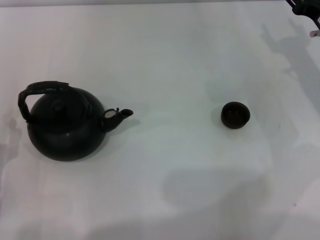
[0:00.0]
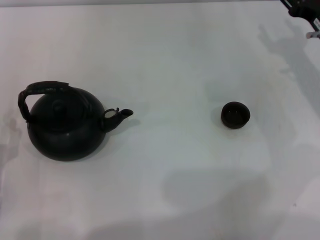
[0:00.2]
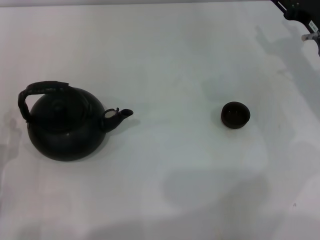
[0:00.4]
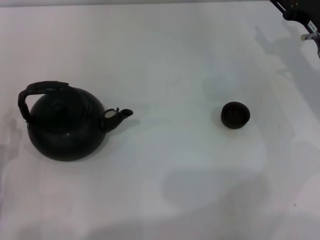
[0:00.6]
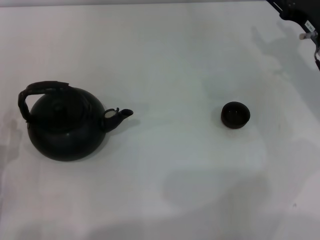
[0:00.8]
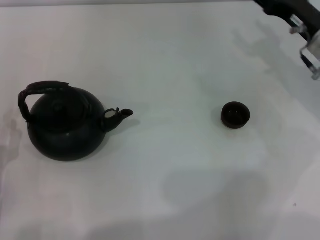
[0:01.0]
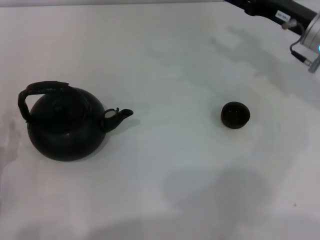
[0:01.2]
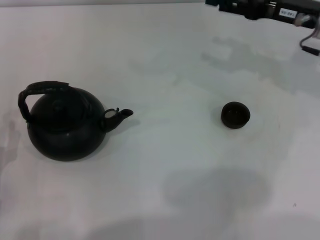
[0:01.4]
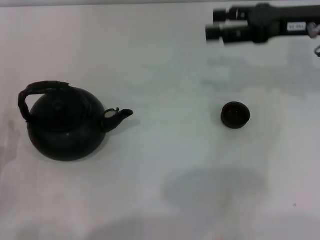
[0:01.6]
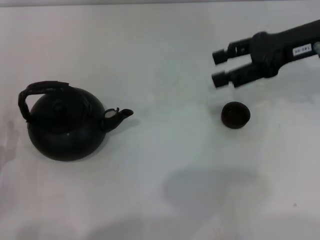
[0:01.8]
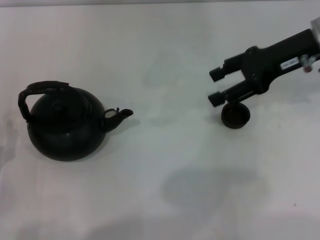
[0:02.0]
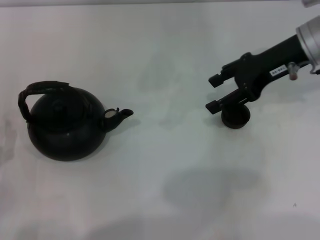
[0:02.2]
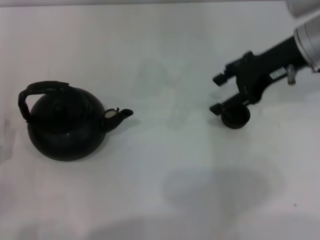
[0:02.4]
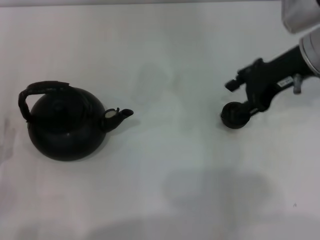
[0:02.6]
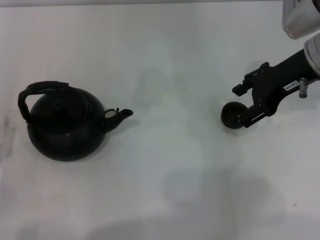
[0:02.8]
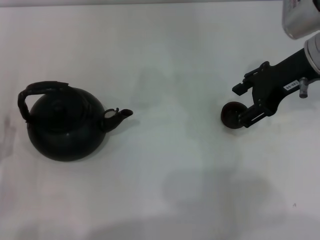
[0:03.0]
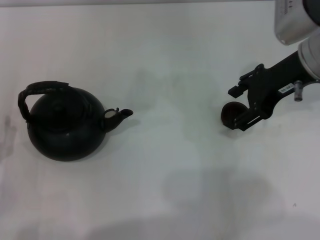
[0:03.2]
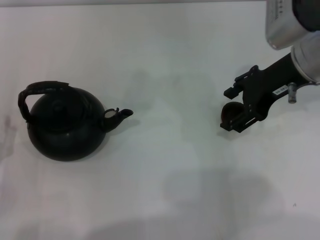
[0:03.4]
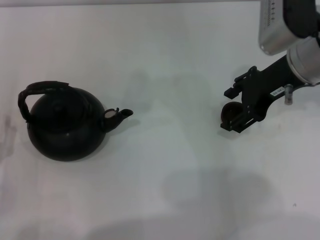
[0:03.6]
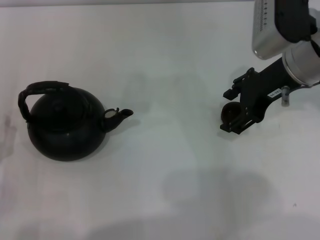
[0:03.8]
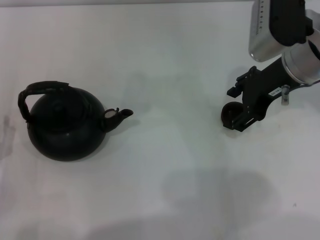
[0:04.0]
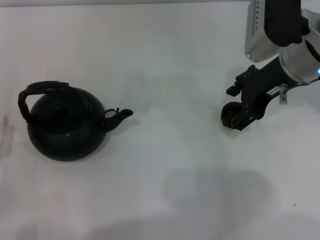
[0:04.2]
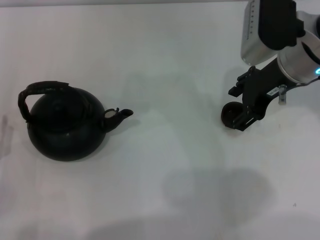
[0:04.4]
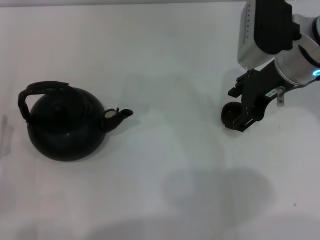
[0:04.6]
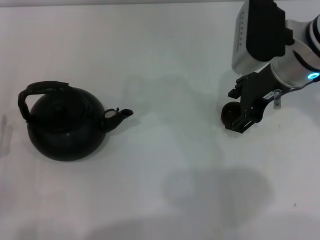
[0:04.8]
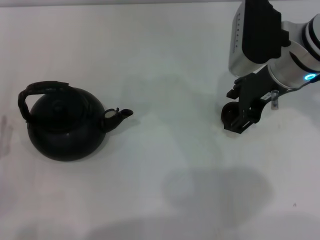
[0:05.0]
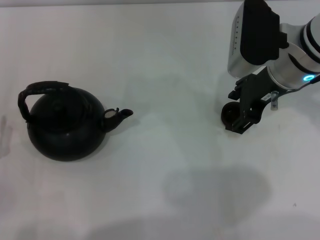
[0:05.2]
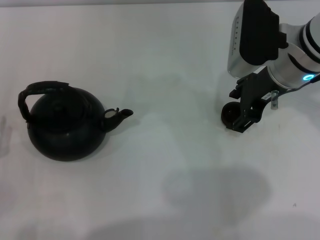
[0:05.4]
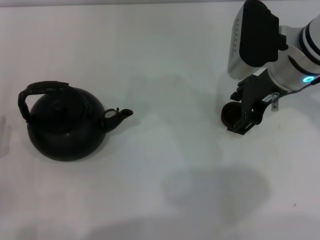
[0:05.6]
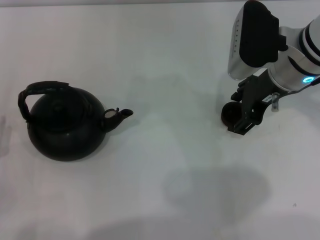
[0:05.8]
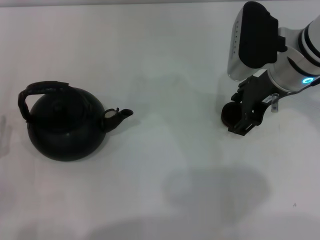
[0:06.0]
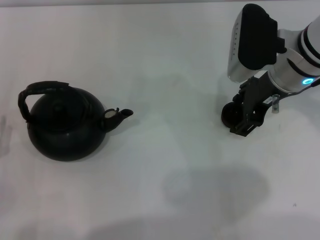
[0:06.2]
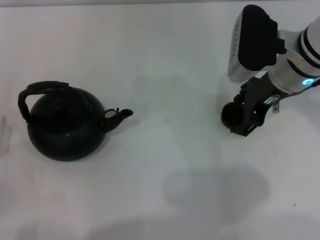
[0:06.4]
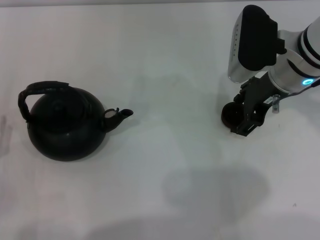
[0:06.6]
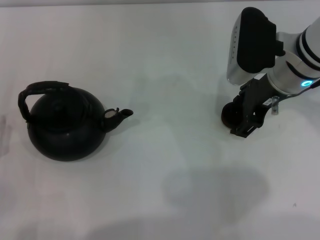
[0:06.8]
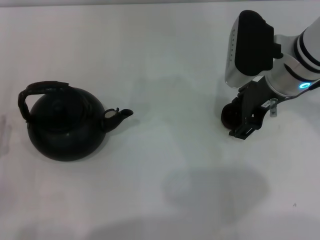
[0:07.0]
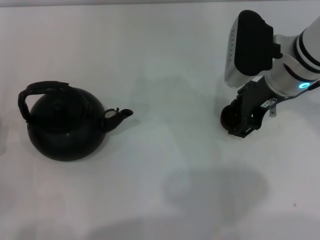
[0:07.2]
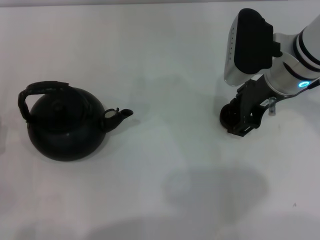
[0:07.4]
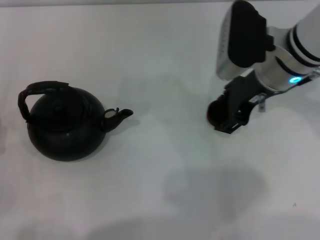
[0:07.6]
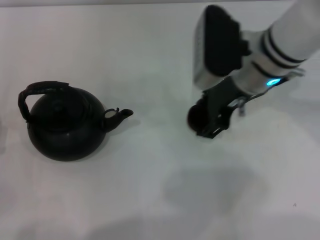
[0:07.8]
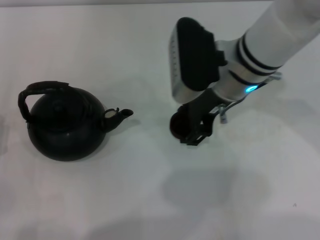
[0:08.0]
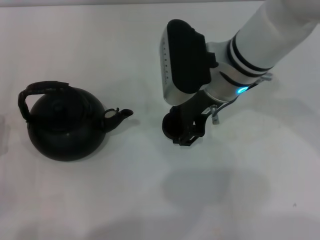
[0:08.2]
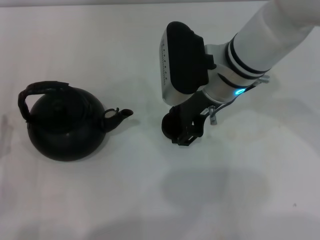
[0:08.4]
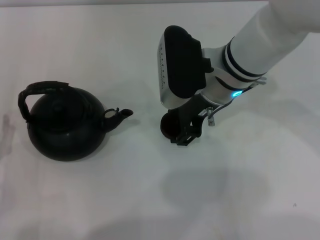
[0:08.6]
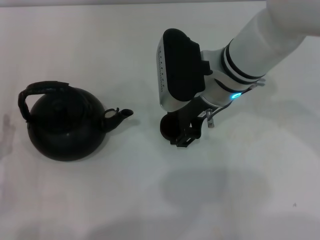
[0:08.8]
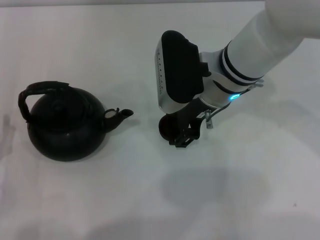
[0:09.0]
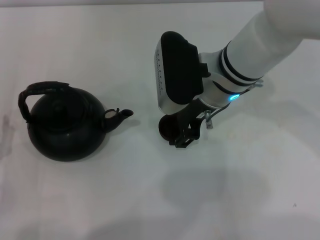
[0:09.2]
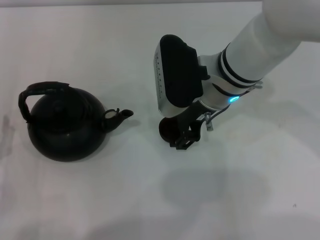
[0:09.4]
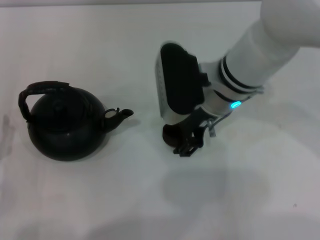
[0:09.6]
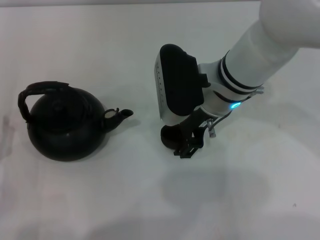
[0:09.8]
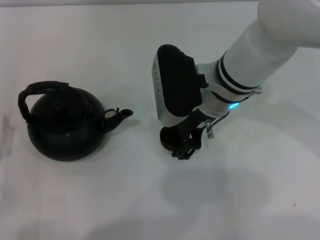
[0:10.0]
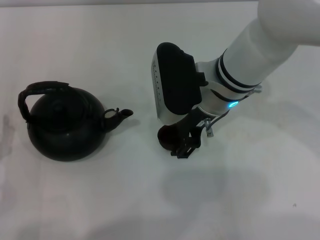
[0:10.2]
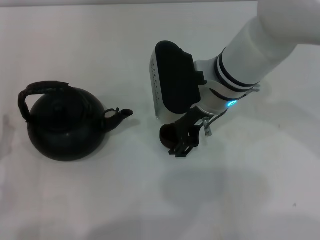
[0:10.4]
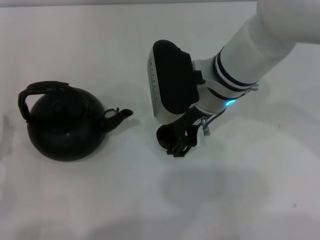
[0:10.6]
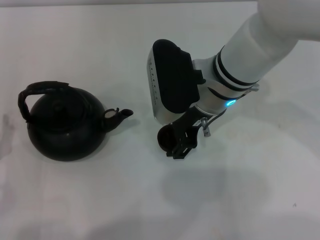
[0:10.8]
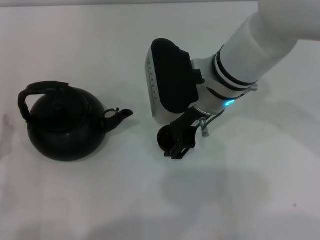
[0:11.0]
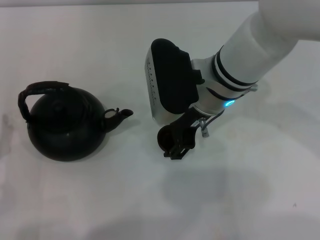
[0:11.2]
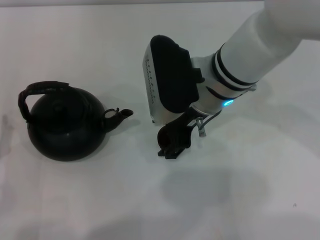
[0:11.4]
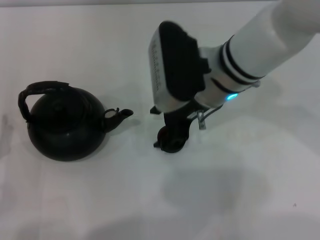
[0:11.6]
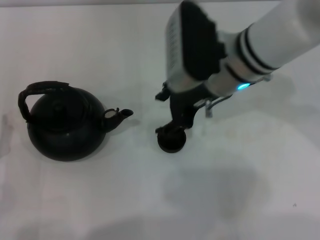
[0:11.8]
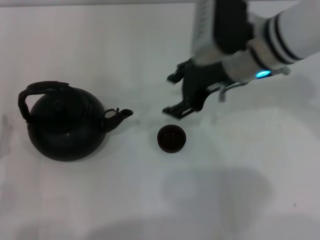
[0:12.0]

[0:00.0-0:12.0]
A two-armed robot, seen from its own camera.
Task of the whole recording: Grasp the handle of the teapot with one hand and pour tea into the teacup.
Step, 0:00.0 to 0:07.4: Pick up the teacup with the right gripper.
Step, 0:07.6 to 0:11.6: Place the teacup in the center of view with the right gripper.
0:00.0 to 0:01.6: The right gripper goes approximately 10 cm upward.
0:01.6 to 0:03.0: The right gripper shifts by approximately 5 cm.
0:03.0 to 0:06.0: The grippers make only small movements.
0:06.0 to 0:07.6: Neither gripper changes place.
0:07.6 to 0:09.0: The right gripper is displaced to the left by some 10 cm.
0:09.0 to 0:10.4: Both grippers stay put.
0:10.4 to 0:12.0: The right gripper is displaced to the right by some 5 cm.

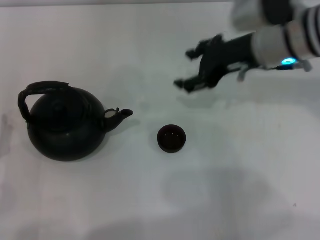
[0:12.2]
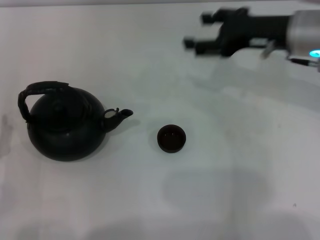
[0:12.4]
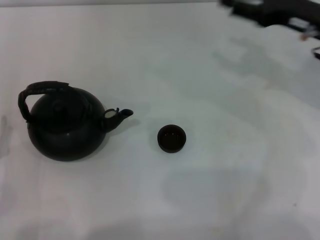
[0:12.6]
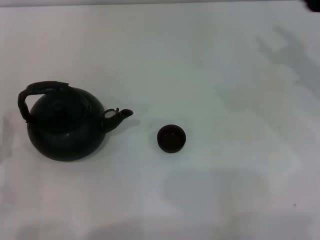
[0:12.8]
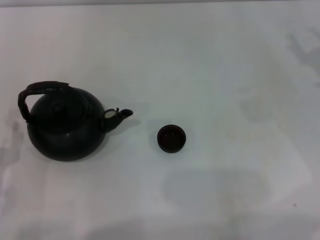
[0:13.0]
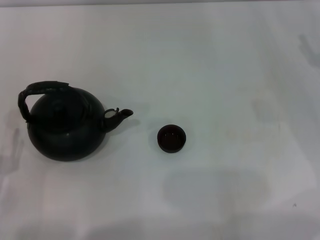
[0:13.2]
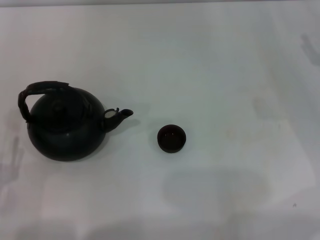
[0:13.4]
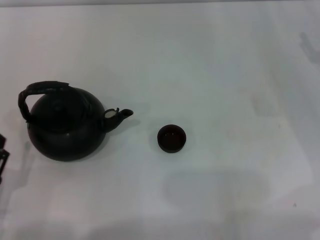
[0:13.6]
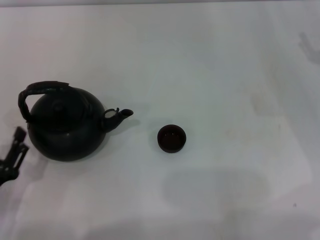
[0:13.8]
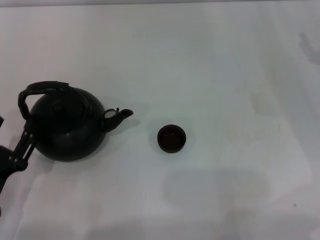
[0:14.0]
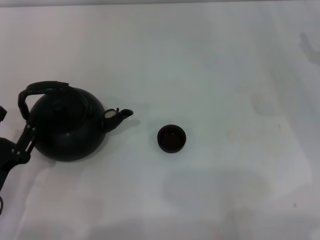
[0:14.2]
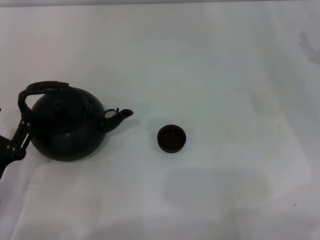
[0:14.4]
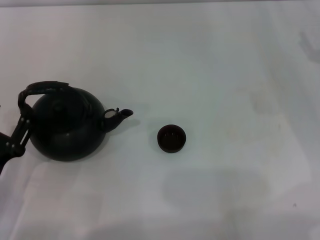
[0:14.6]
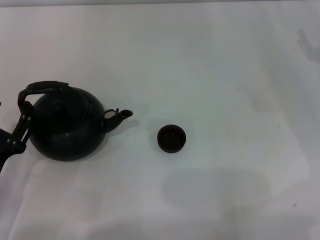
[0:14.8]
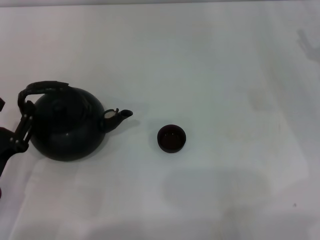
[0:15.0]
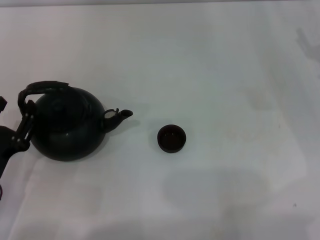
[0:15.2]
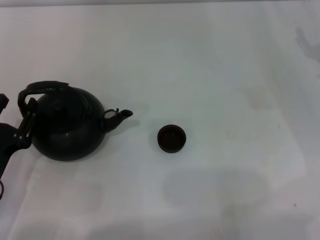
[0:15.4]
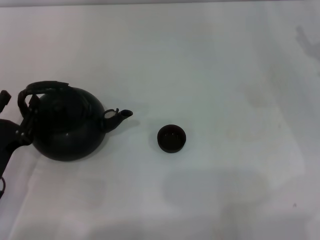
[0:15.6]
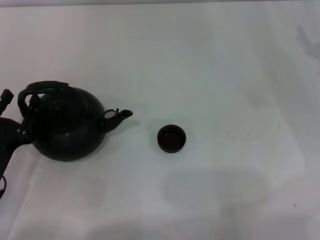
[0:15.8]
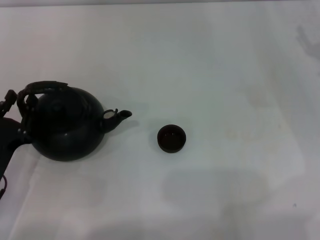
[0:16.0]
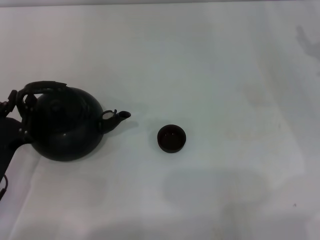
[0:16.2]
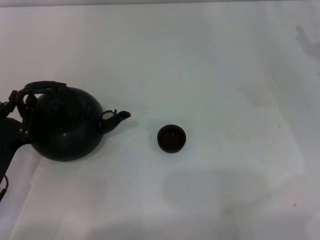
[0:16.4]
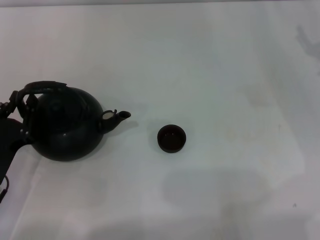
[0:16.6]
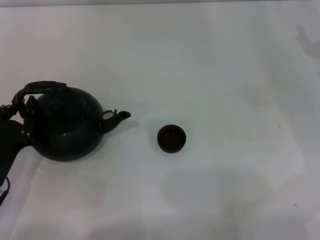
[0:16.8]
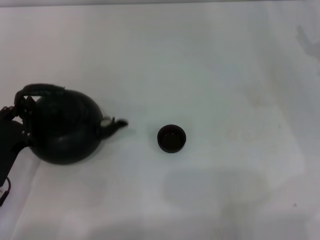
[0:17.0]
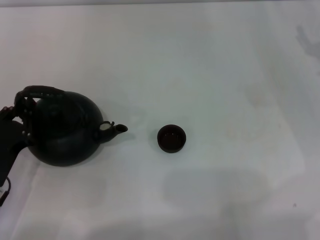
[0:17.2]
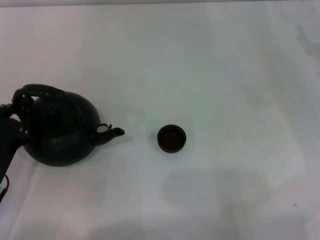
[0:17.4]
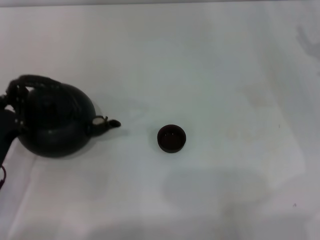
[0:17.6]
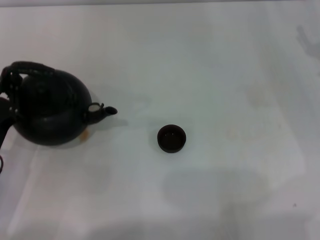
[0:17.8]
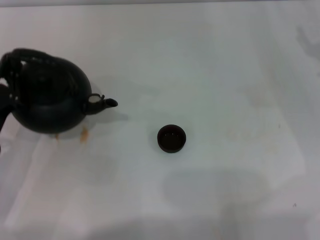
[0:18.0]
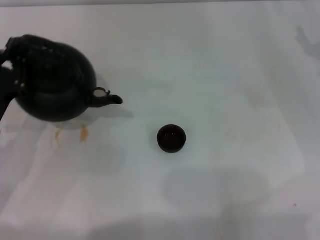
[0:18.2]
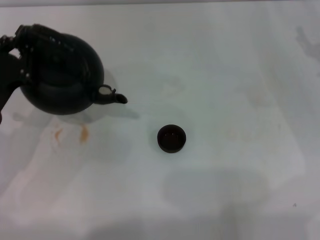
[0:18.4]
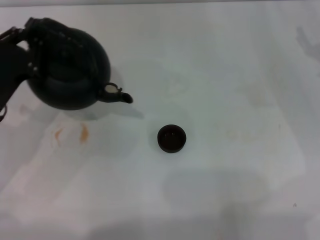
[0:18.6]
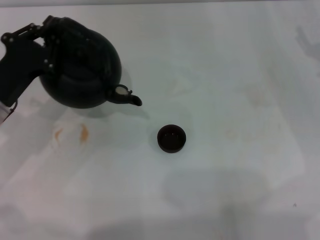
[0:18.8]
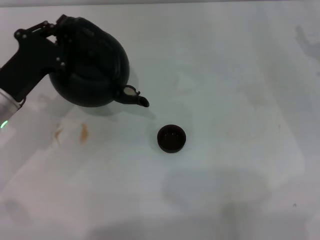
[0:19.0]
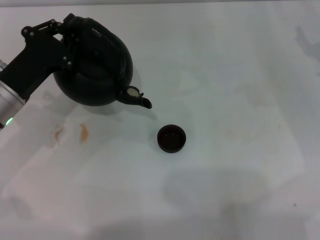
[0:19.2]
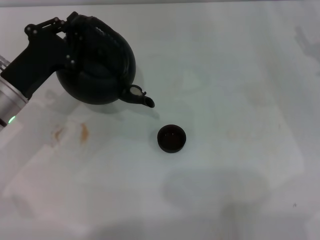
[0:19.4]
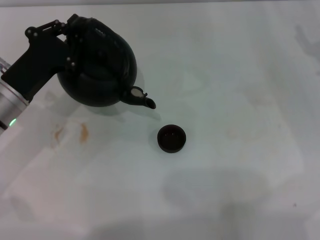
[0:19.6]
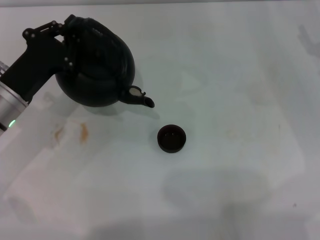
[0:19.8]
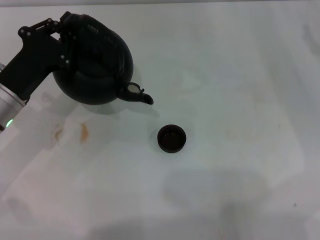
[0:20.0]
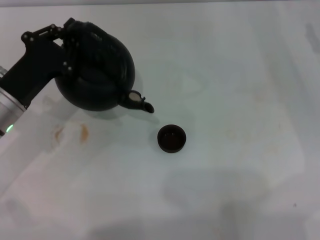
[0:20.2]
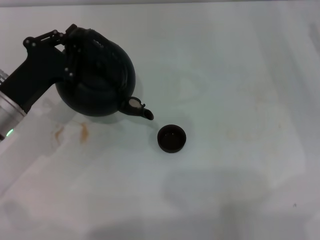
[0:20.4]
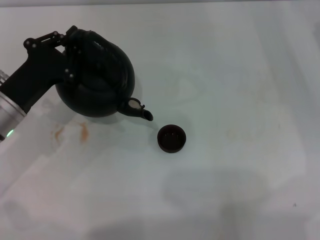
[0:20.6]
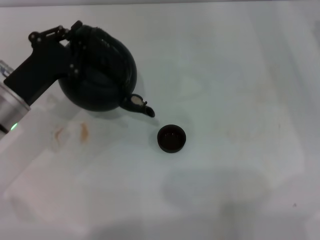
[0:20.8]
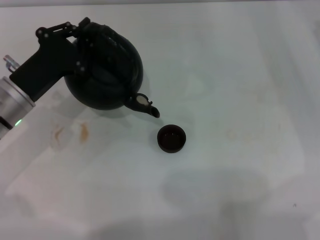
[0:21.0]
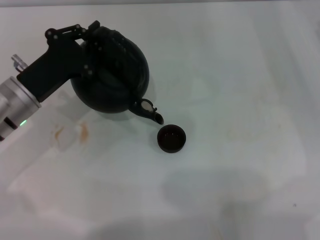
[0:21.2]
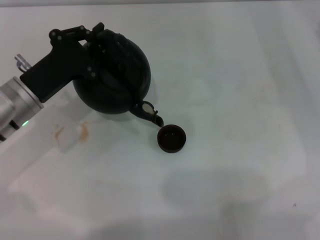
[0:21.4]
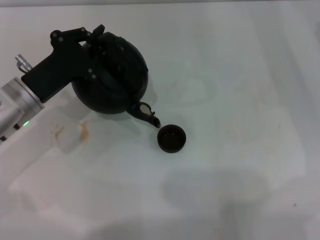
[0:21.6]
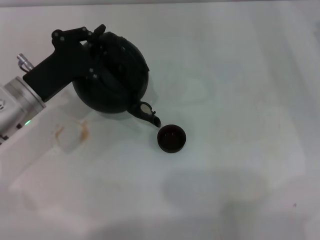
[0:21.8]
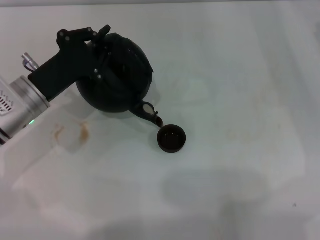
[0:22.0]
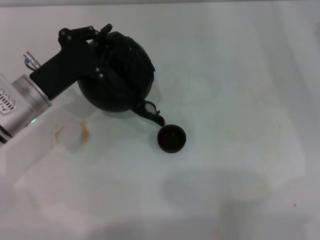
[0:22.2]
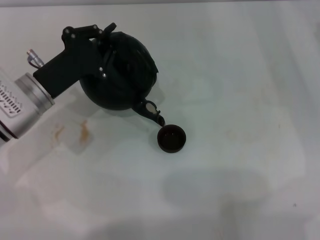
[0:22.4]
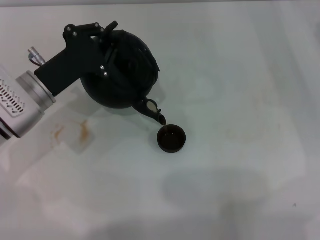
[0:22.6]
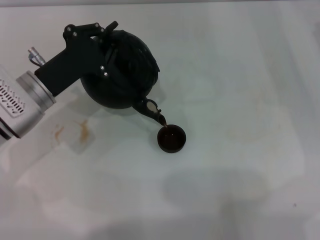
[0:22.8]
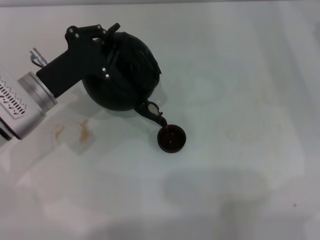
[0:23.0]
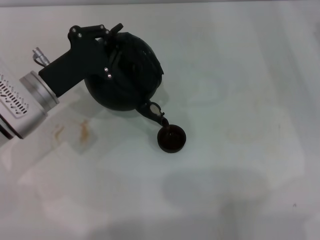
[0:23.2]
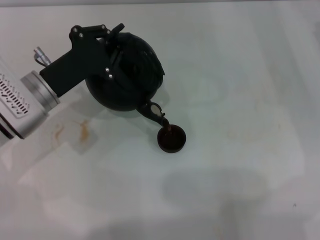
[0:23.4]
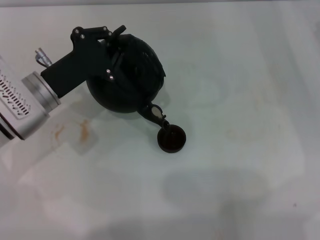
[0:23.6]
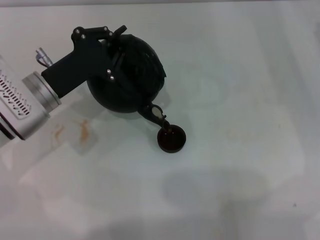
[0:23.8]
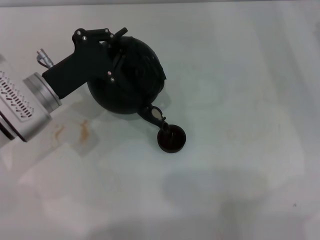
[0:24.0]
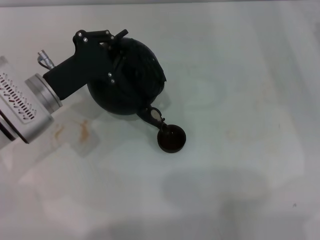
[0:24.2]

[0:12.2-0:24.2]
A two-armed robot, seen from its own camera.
Task of the whole recording: Grasp the handle of the teapot with one hand and pour tea into the teacup.
Step, 0:12.2 to 0:18.8: Pick up the teapot with the left gripper.
0:12.2 to 0:13.8: The right gripper heads to the right and downward, covering some 20 cm.
0:13.8 to 0:15.2: The grippers stay close to where they were, moving slightly.
0:15.2 to 0:16.6: The left gripper closes up.
0:16.6 to 0:18.2: The left gripper goes roughly 5 cm forward.
0:18.2 to 0:19.8: The left gripper goes approximately 5 cm forward.
0:19.8 to 0:21.2: The grippers stay close to where they were, moving slightly.
0:21.2 to 0:22.6: The grippers stay close to where they were, moving slightly.
0:22.6 to 0:24.2: Both grippers stay put.
